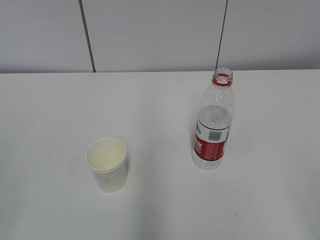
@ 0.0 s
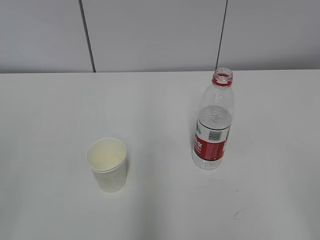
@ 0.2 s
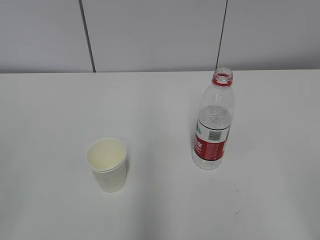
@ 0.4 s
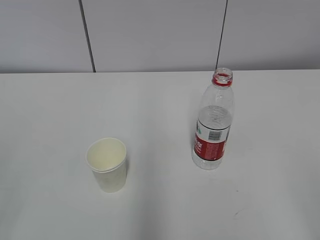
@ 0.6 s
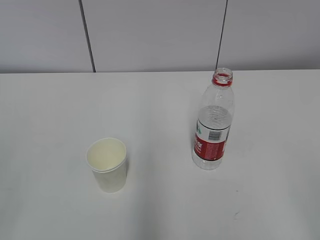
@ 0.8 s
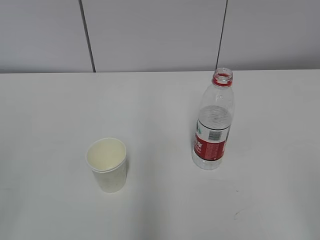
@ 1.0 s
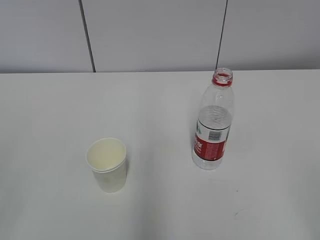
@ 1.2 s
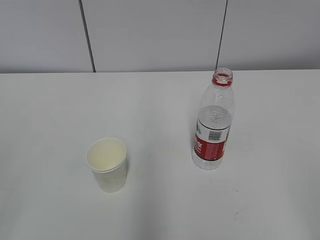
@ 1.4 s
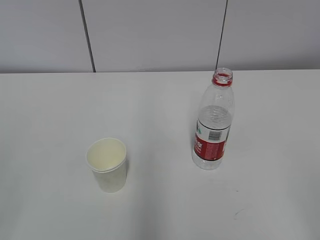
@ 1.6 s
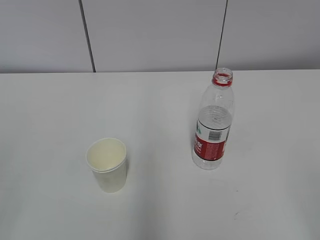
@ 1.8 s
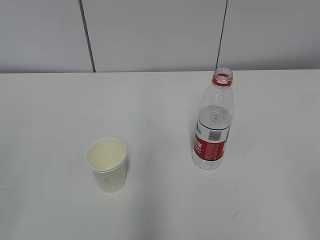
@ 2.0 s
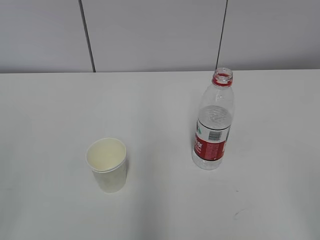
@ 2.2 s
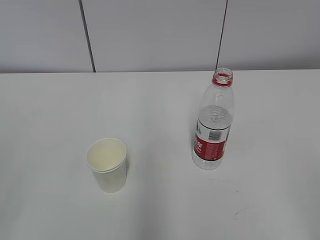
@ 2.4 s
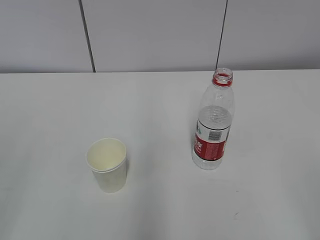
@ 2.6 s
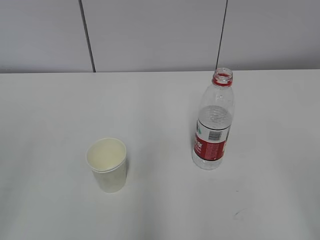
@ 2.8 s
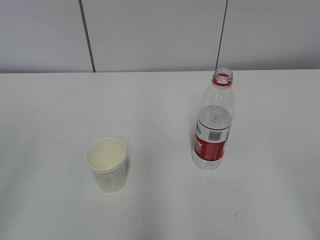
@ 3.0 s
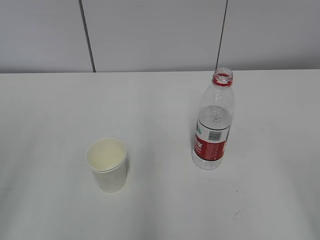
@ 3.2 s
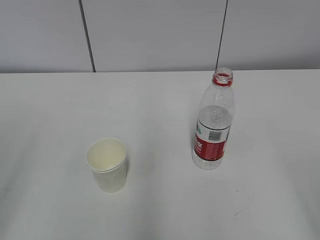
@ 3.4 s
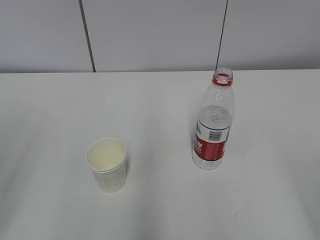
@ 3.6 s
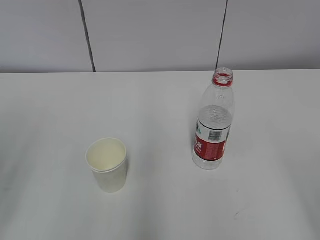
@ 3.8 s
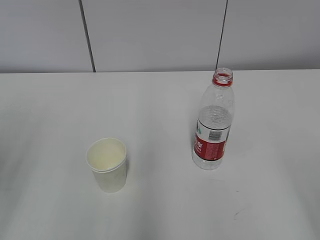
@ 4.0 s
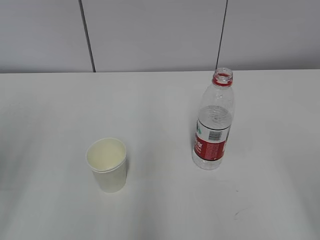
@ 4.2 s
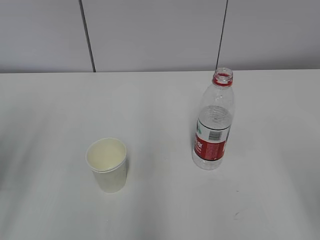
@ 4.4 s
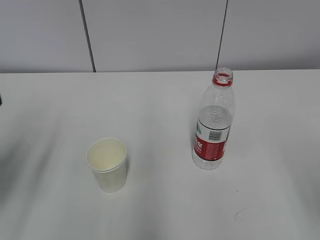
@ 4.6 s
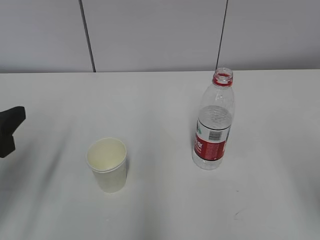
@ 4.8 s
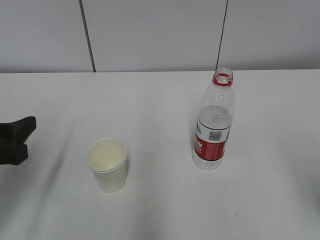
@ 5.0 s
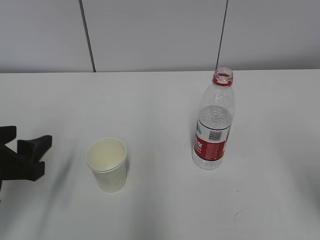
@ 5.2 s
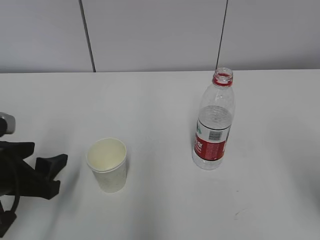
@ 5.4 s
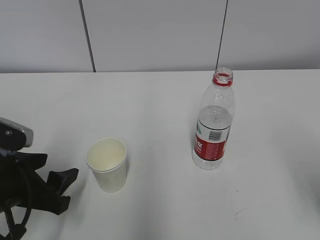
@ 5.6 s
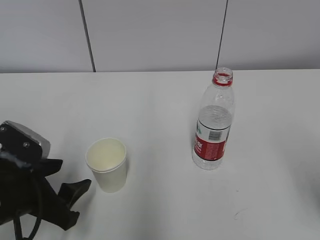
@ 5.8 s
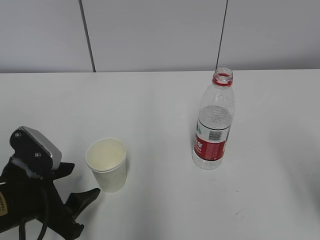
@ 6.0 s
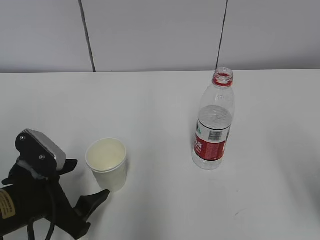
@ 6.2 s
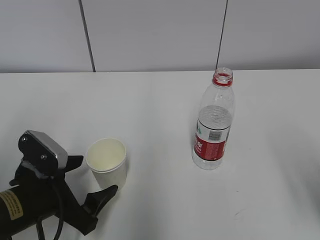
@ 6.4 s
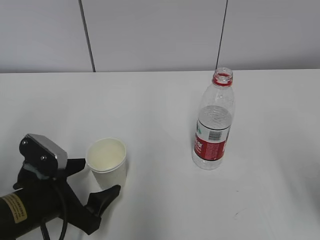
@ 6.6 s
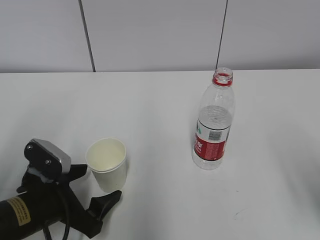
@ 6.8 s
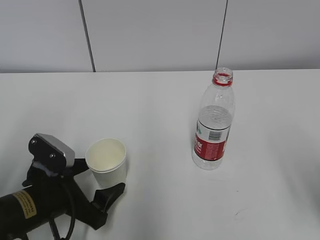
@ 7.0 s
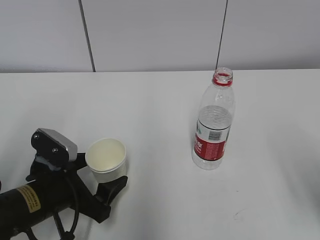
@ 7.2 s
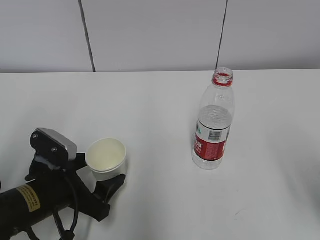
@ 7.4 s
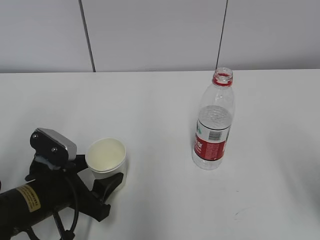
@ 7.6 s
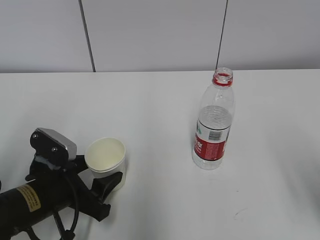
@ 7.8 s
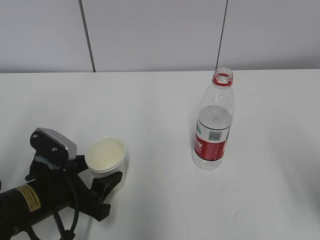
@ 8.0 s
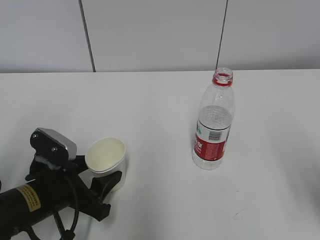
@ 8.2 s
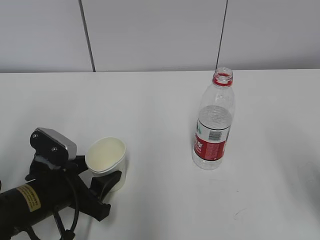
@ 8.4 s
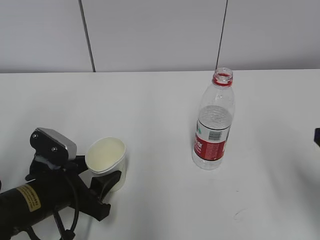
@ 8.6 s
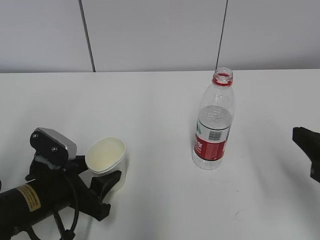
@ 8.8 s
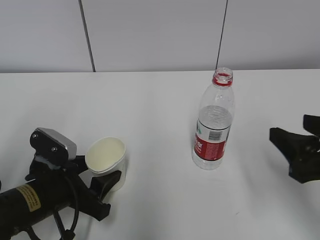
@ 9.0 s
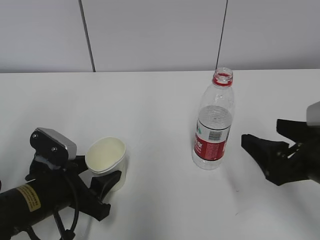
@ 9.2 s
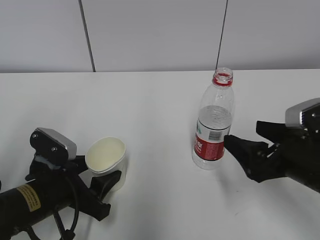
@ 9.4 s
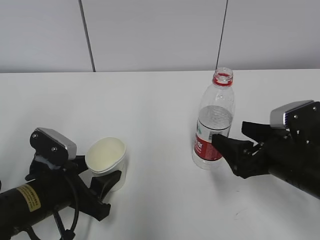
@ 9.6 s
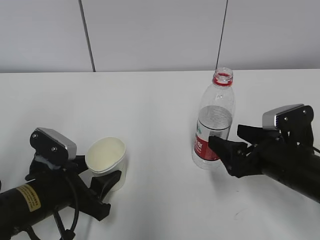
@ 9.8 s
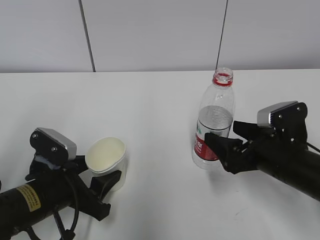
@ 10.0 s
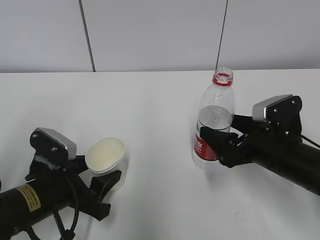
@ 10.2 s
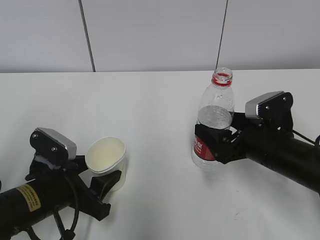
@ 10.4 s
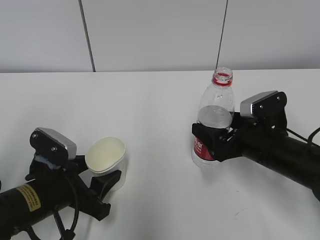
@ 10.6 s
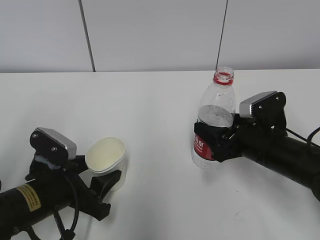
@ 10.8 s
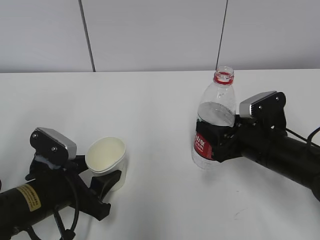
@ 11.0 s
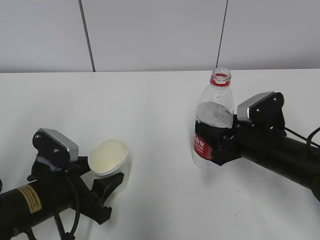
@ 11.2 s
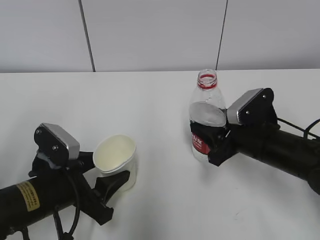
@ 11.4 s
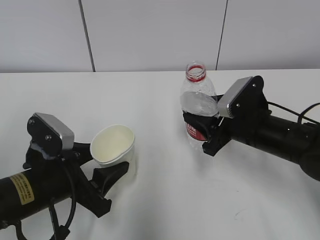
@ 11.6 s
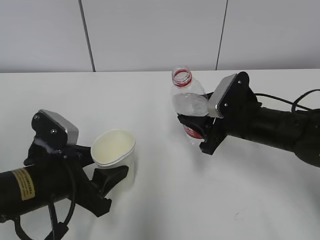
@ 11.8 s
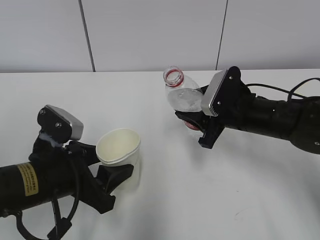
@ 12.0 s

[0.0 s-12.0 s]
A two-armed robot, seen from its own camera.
Step, 0.0 to 9.2 s: Grab the water bottle with the right hand.
4.4 to 6.0 s: The left gripper shifts approximately 20 cm downward and to the right.
6.0 to 7.6 s: The left gripper opens, then closes once more.
7.6 to 9.0 s: The right gripper shifts about 5 cm forward. Meanwhile the left gripper closes up.
9.0 to 10.4 s: The right gripper is displaced forward, downward and to the left by about 15 cm, and opens its fingers.
10.4 to 12.0 s: The right gripper shifts some 5 cm forward, and closes.

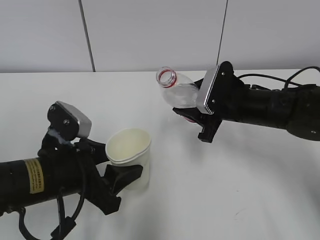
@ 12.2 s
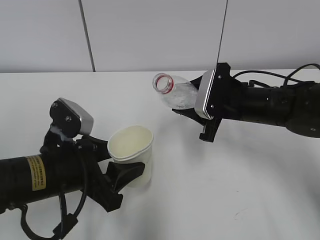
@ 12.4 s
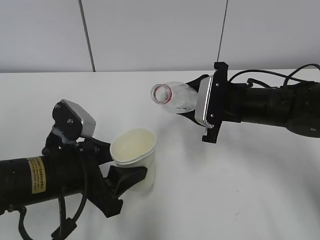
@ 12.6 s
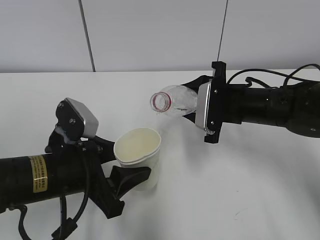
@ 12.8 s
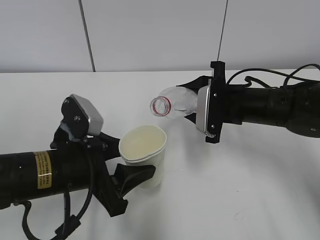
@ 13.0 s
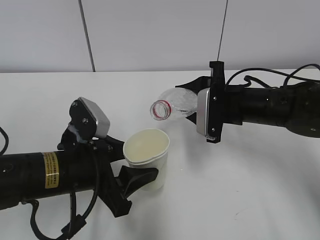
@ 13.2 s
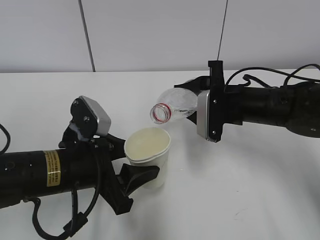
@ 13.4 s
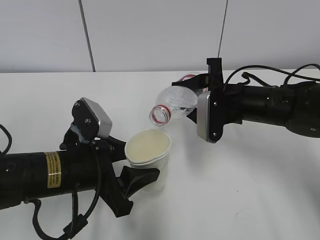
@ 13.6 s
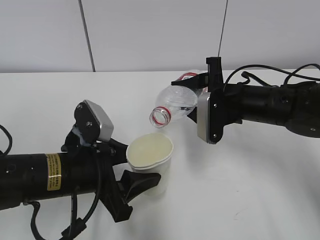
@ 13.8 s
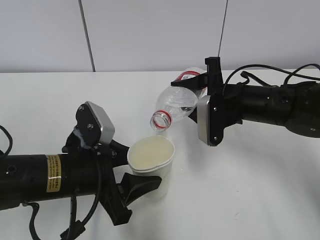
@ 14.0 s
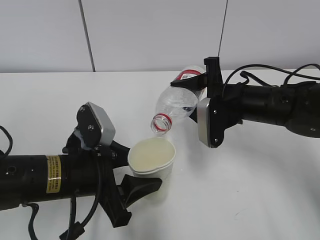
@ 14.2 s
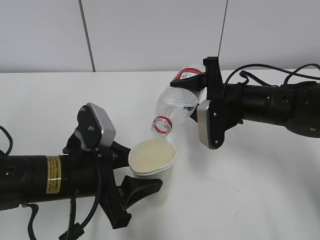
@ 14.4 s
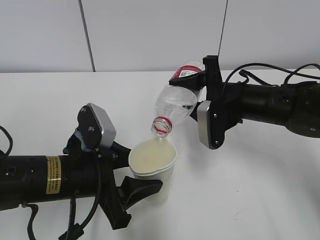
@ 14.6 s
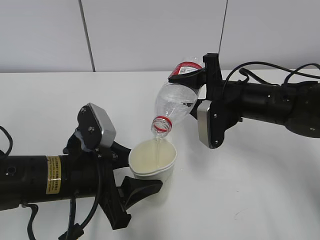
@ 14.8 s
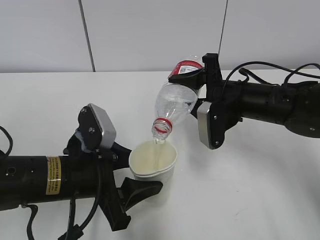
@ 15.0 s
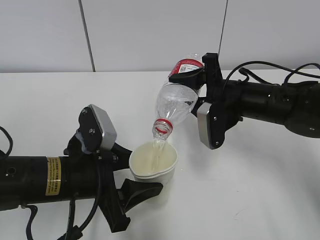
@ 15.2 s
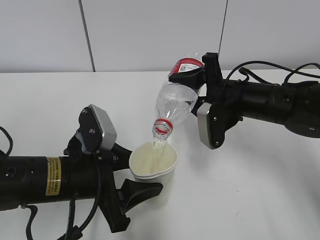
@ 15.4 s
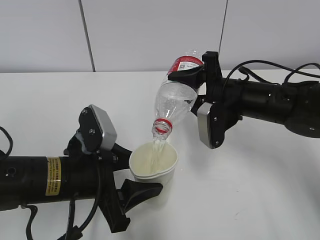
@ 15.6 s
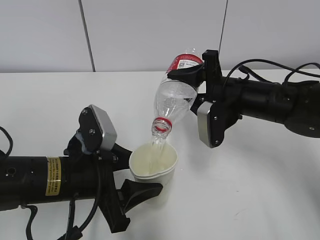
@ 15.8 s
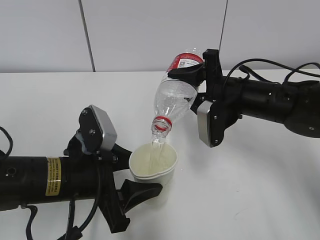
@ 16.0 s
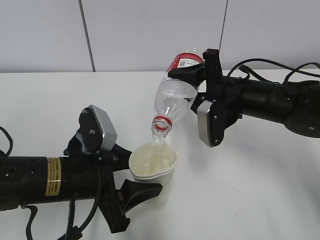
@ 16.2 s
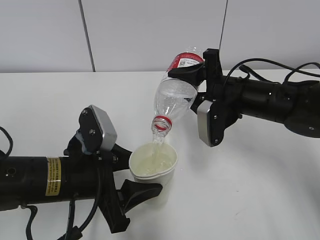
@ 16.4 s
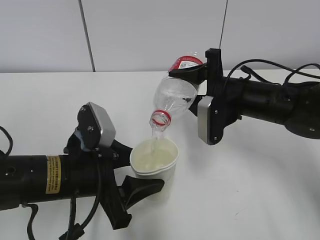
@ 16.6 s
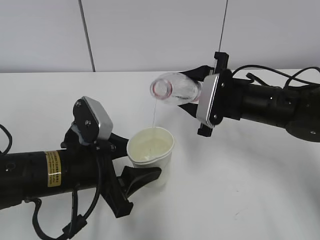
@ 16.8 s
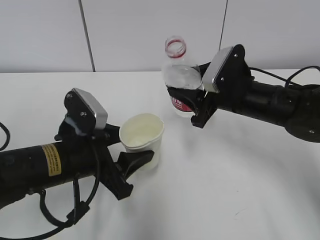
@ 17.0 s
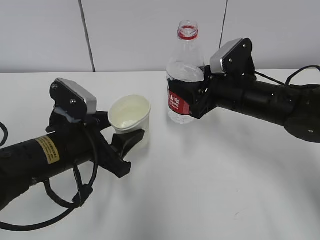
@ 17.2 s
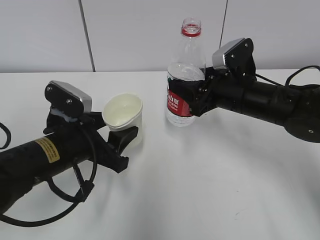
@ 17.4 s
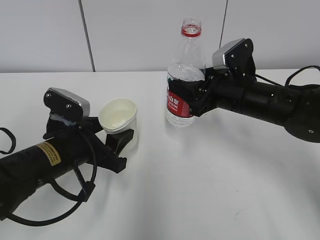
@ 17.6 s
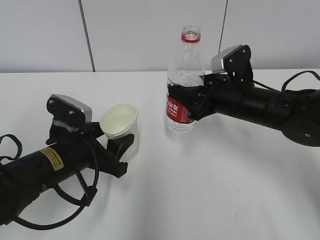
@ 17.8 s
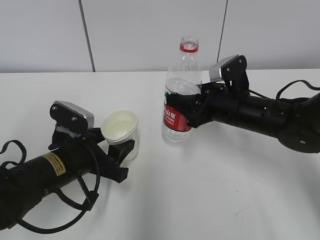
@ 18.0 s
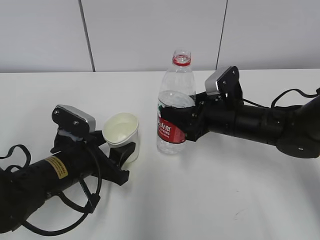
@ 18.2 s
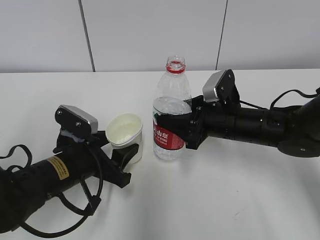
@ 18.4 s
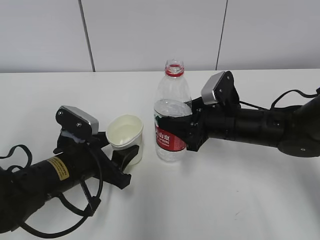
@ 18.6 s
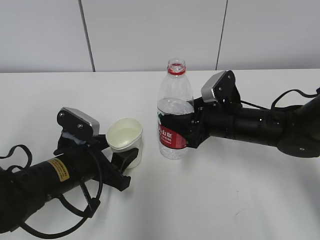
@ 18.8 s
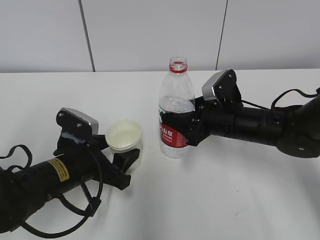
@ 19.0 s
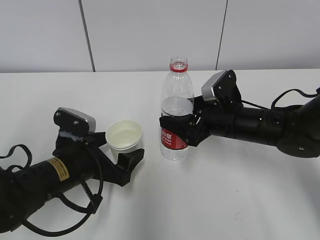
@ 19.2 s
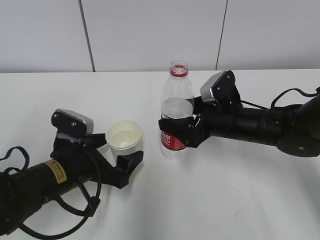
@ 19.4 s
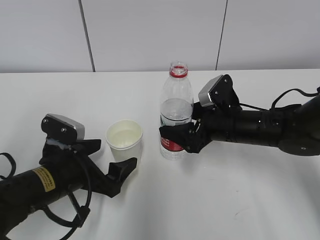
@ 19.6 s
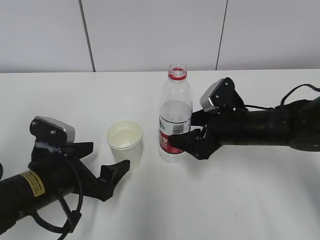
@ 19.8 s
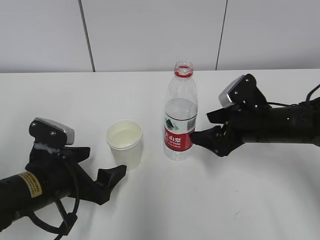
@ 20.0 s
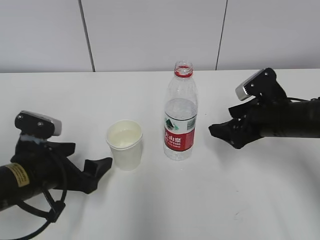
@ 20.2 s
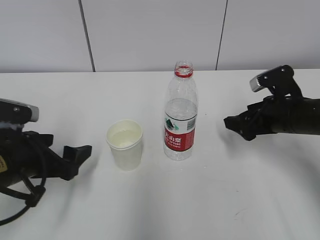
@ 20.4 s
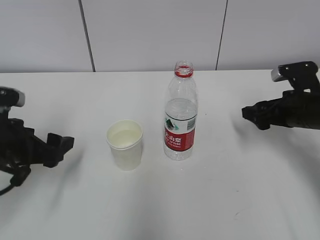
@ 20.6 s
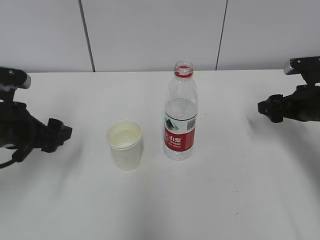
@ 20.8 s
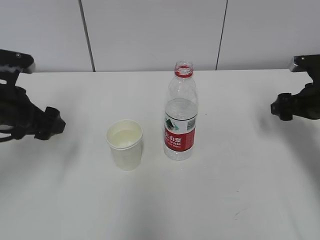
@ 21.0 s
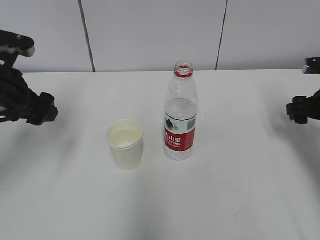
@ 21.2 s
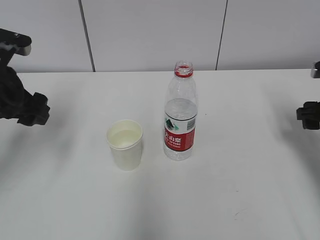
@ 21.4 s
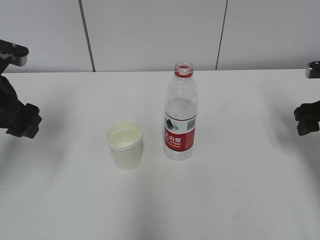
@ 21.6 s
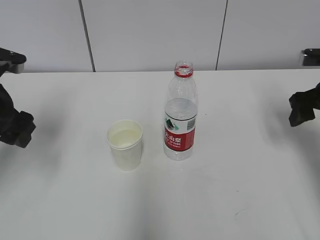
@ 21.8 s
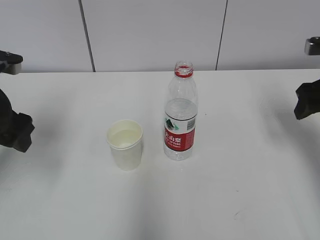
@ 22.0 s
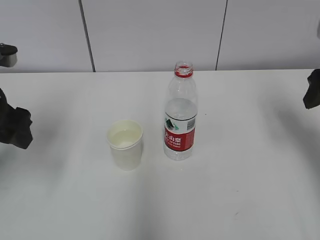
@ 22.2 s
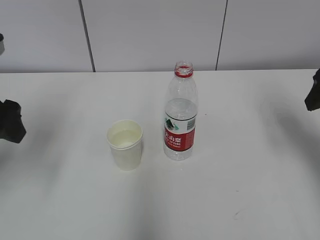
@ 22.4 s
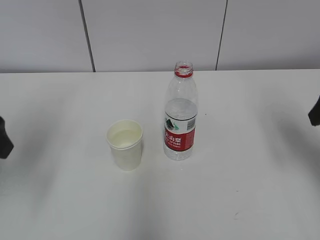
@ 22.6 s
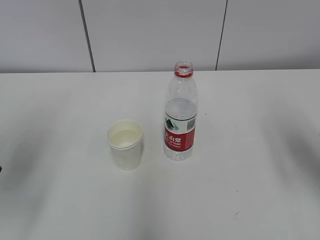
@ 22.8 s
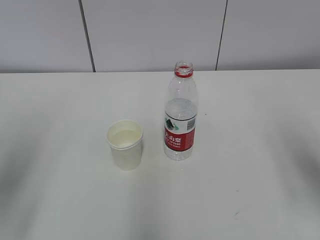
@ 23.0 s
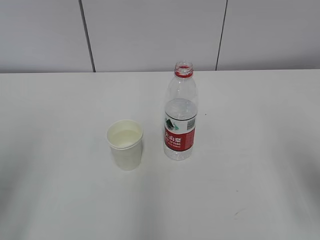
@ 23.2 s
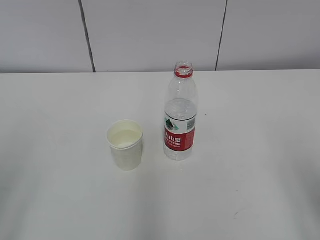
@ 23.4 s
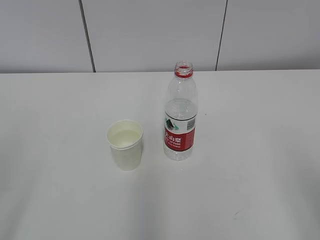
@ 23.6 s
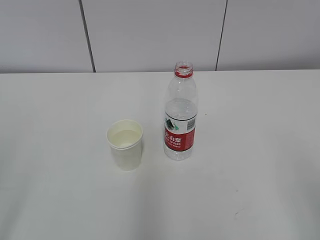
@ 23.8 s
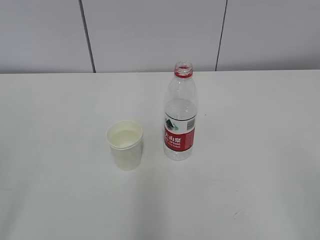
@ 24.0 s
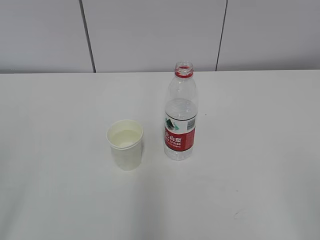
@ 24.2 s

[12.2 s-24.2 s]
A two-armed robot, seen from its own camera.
Step, 12.2 to 14.0 s: Fill water with the left hand.
Step, 12.2 to 14.0 s: Pour water with the right hand.
Step, 14.2 to 14.6 s: Collect water with the right hand.
Step, 14.8 to 15.8 s: Place the paper cup with the left hand.
Step, 16.0 to 16.6 s: Place the water bottle with the right hand.
13.8 to 15.2 s: The grippers move only a little.
15.2 to 16.6 s: Neither gripper changes place.
16.6 to 18.2 s: The left gripper ends up roughly 5 cm from where it was.
18.2 to 19.8 s: The left gripper opens its fingers, while the right gripper opens.
19.8 to 21.2 s: The right gripper heads to the right, covering approximately 15 cm. Meanwhile the left gripper is displaced upward, to the left and forward by about 15 cm.
21.2 to 22.6 s: The right gripper is displaced upward and backward by some 15 cm, while the left gripper moves backward and upward, about 10 cm.
22.6 to 24.2 s: The two grippers go about 25 cm backward.
